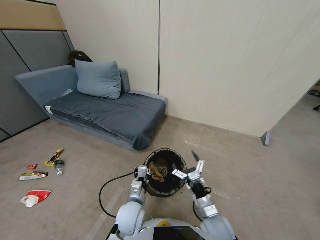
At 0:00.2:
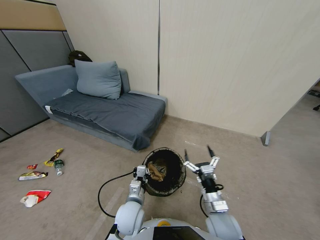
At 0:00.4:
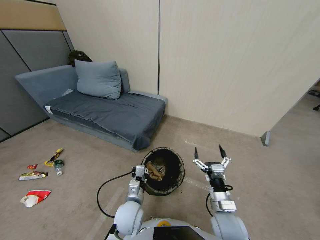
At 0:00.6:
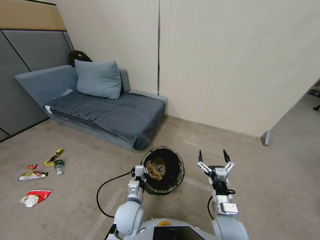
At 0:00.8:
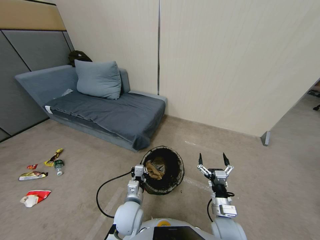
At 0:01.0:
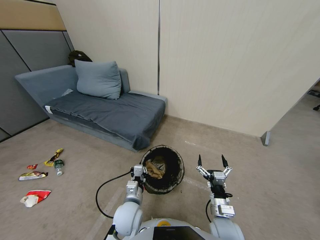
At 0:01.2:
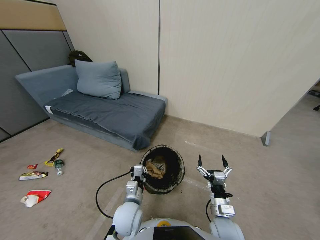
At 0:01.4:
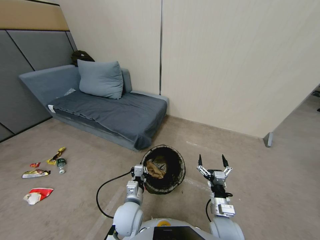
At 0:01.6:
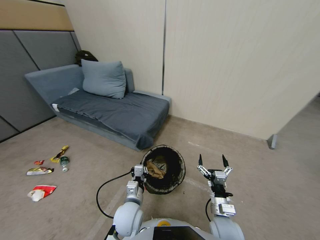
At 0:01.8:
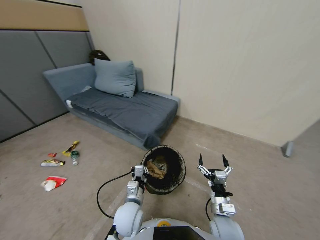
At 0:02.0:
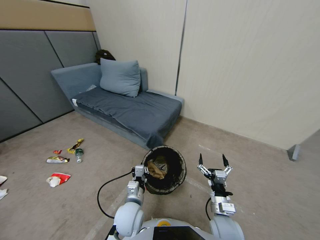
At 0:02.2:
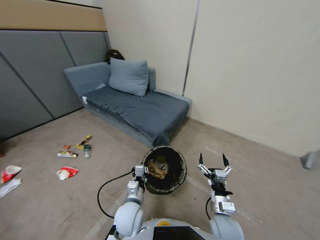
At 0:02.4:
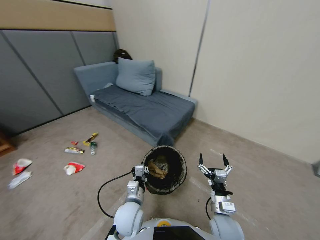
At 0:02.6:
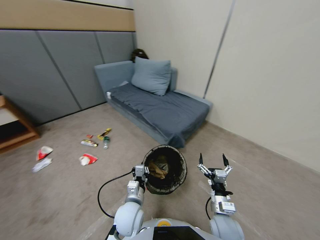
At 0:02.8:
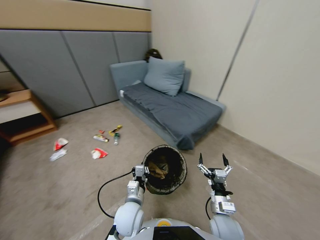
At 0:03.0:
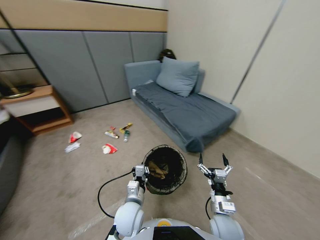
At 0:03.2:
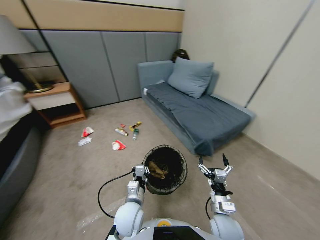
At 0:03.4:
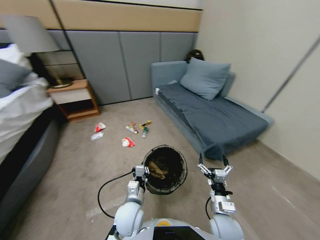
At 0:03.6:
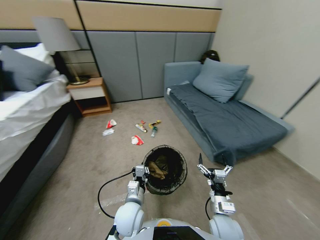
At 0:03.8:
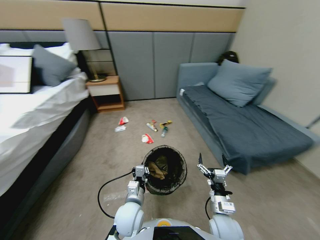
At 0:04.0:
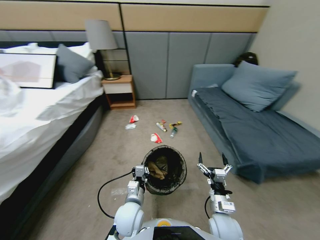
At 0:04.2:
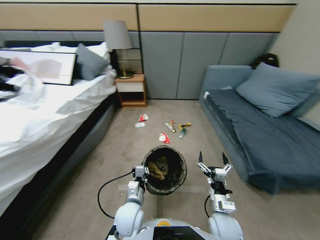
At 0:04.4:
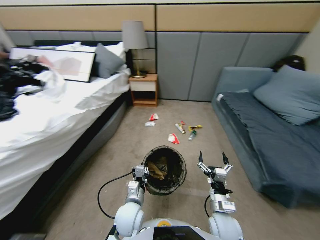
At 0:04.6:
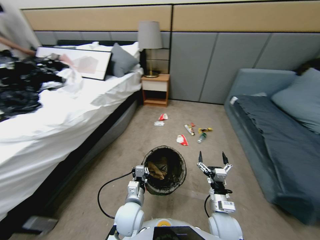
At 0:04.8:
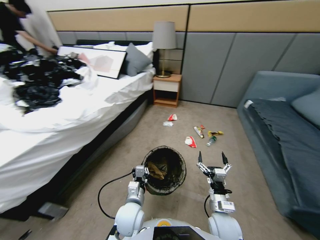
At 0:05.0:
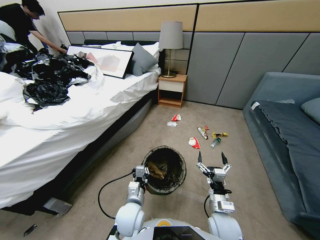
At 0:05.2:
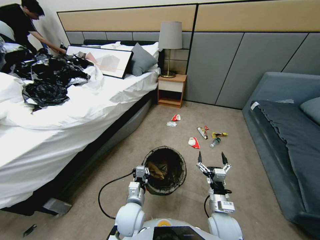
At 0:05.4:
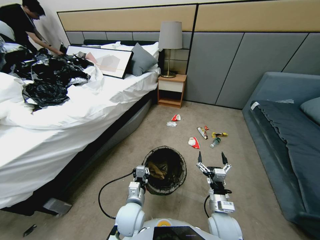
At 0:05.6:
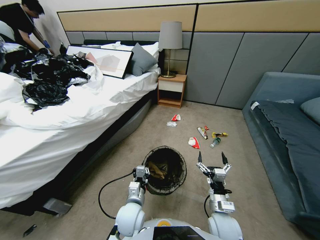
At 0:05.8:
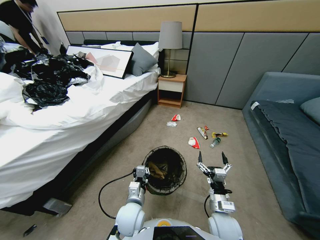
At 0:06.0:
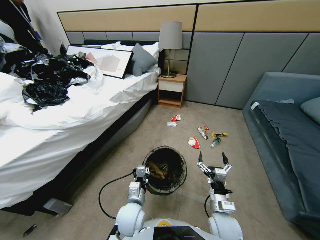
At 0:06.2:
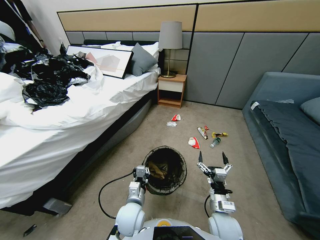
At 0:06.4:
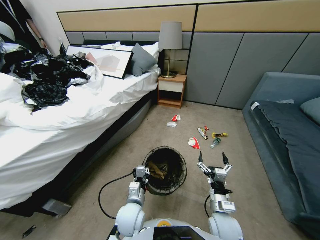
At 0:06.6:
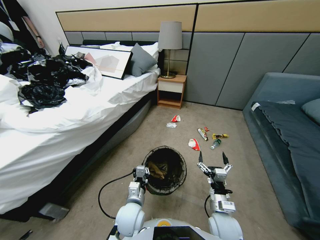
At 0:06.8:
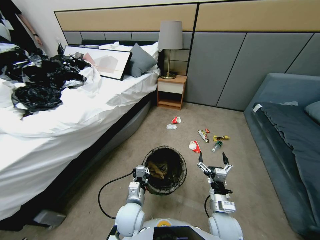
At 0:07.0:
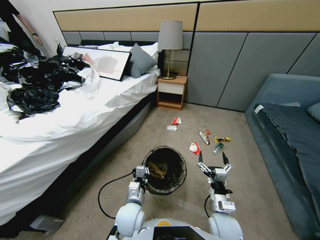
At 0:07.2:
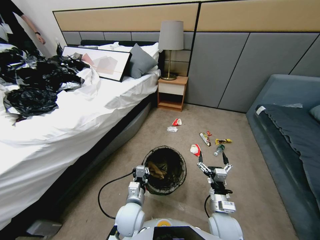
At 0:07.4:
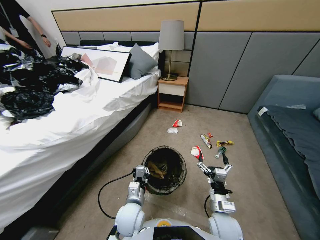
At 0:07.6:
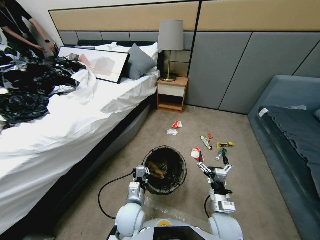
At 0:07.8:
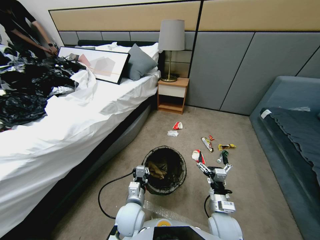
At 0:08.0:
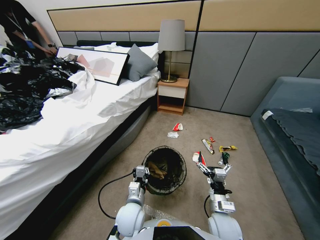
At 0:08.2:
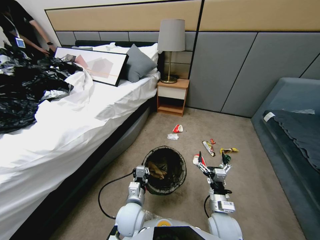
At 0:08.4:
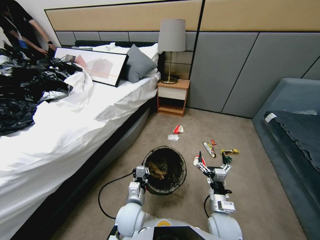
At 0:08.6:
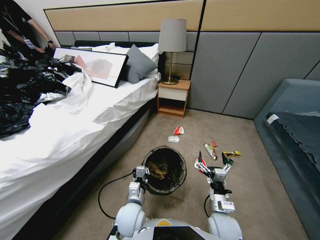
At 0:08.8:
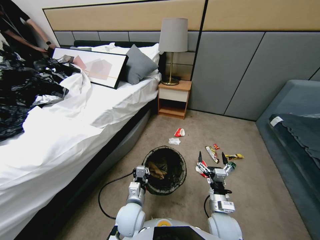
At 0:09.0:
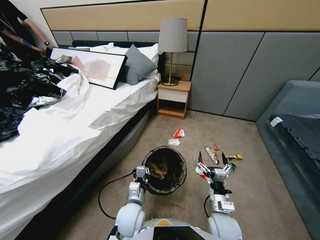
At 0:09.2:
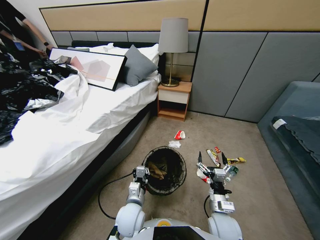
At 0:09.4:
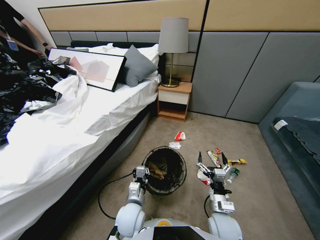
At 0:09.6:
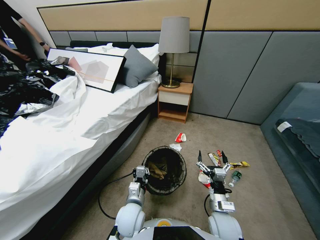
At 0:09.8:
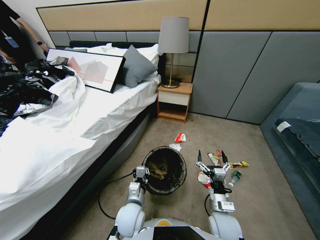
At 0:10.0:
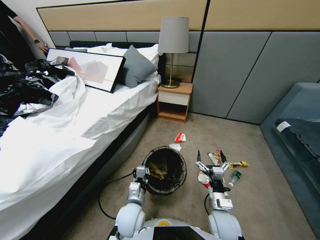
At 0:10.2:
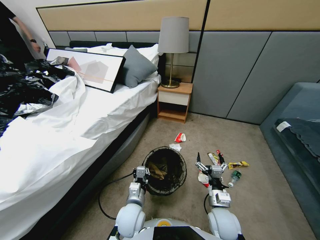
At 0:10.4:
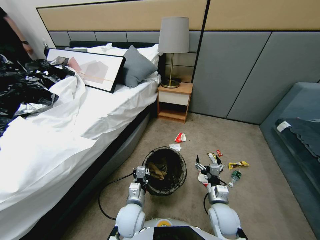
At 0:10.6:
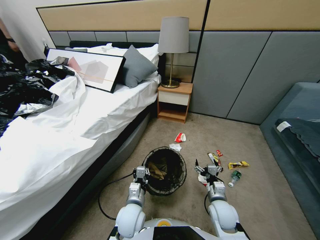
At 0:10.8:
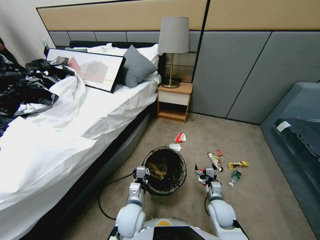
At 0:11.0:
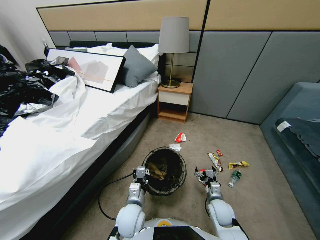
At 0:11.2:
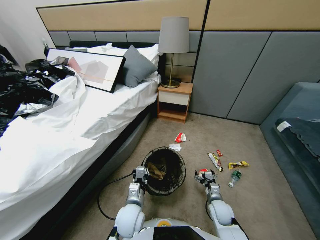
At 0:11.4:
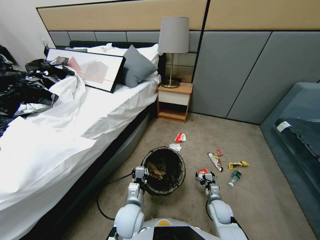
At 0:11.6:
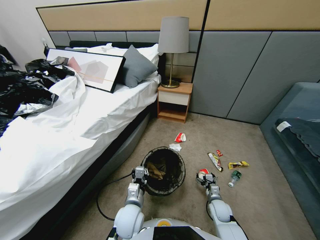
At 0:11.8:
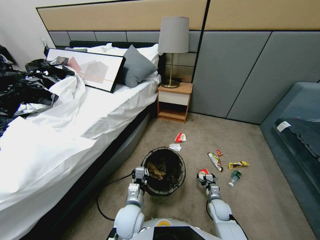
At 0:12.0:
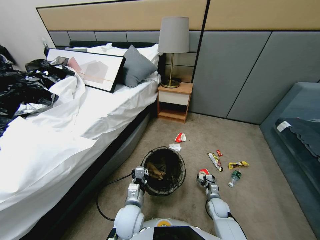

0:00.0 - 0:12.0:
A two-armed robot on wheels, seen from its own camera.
Task of the whole recording: Pick up the trash bin, then pick up the garbage from the floor and place it into the trash bin.
0:00.0 - 0:01.6: The grippers move only a little.
0:10.4 - 0:12.0: The right gripper goes roughly 20 cm downward and to the right.

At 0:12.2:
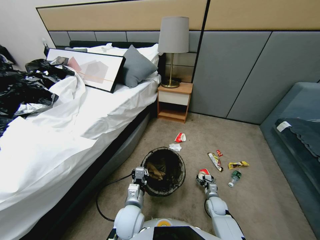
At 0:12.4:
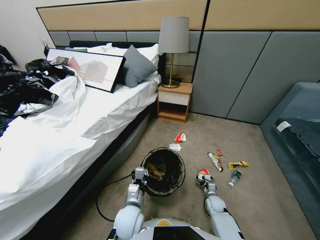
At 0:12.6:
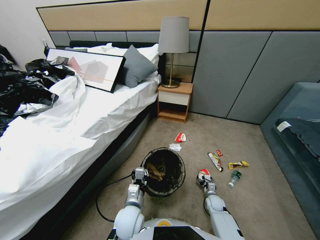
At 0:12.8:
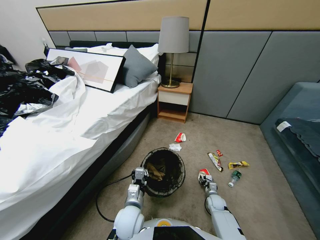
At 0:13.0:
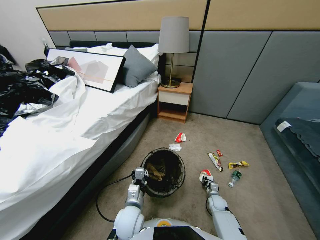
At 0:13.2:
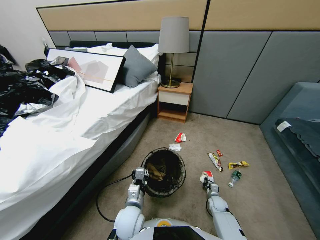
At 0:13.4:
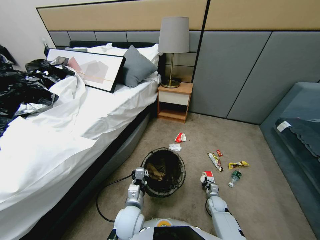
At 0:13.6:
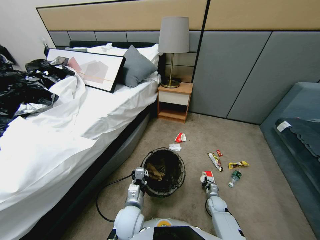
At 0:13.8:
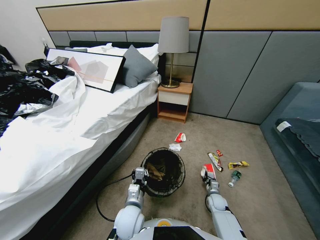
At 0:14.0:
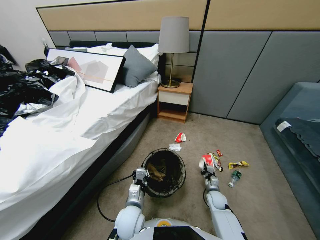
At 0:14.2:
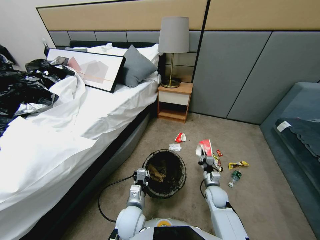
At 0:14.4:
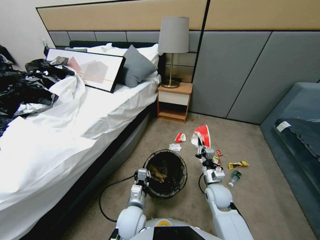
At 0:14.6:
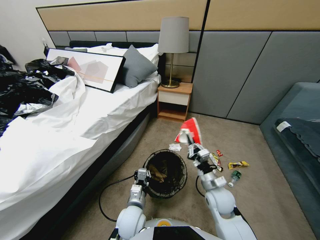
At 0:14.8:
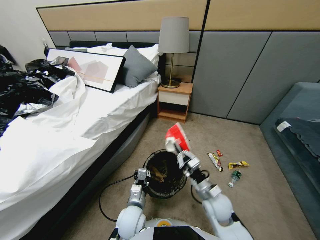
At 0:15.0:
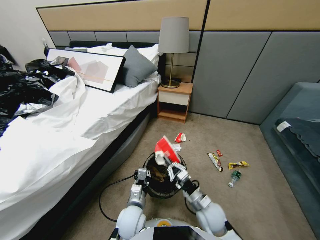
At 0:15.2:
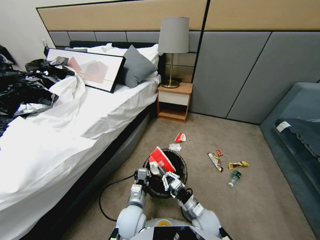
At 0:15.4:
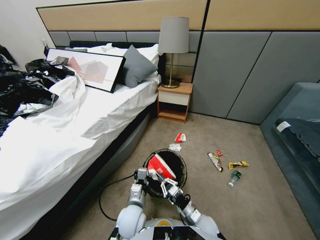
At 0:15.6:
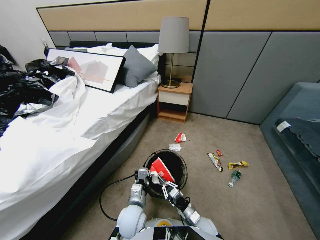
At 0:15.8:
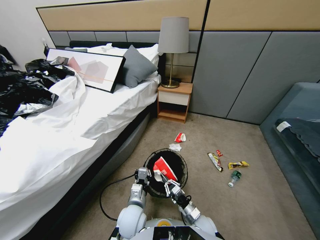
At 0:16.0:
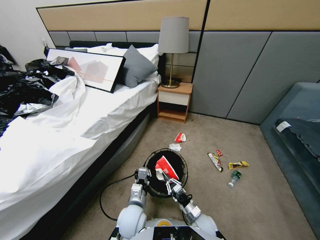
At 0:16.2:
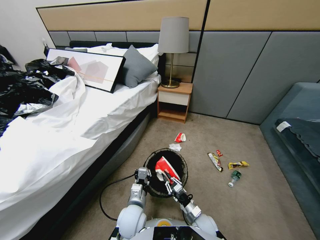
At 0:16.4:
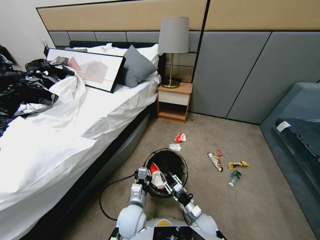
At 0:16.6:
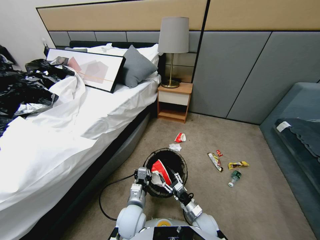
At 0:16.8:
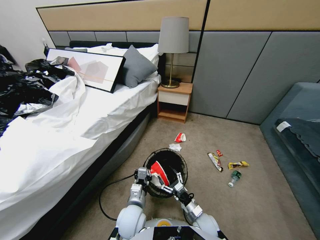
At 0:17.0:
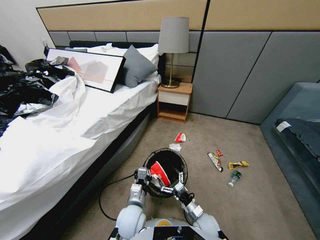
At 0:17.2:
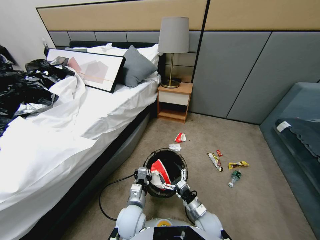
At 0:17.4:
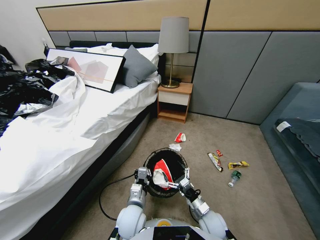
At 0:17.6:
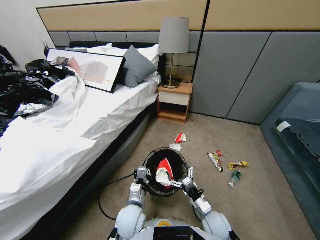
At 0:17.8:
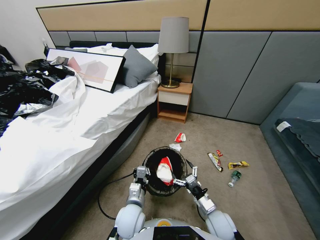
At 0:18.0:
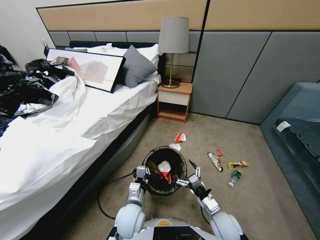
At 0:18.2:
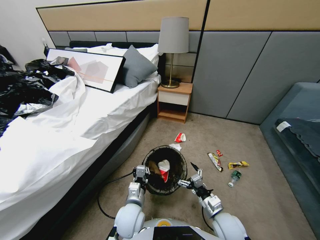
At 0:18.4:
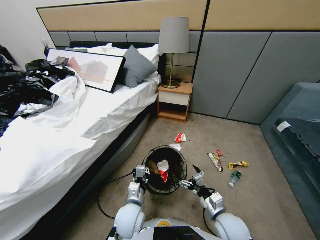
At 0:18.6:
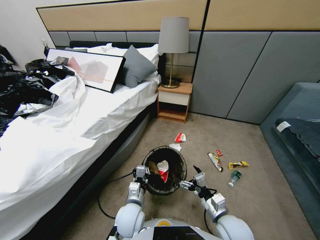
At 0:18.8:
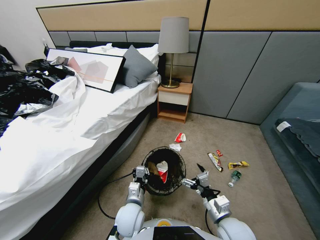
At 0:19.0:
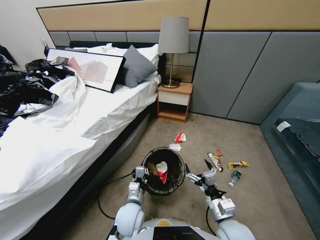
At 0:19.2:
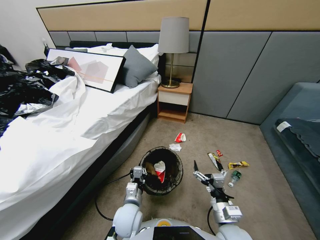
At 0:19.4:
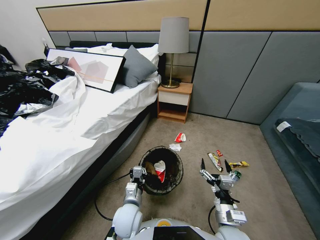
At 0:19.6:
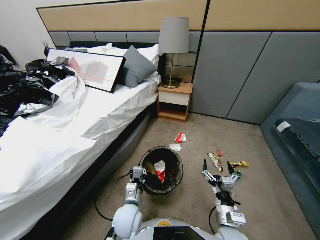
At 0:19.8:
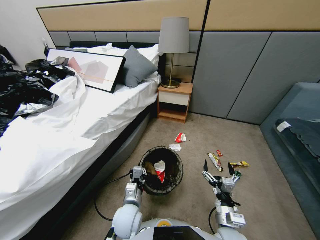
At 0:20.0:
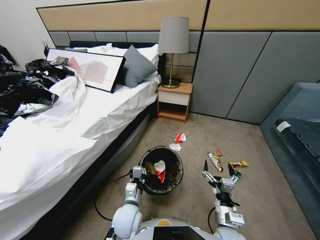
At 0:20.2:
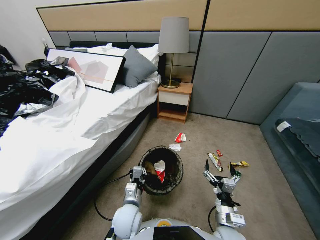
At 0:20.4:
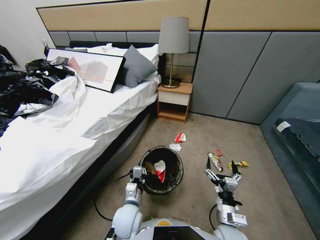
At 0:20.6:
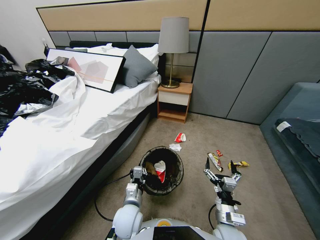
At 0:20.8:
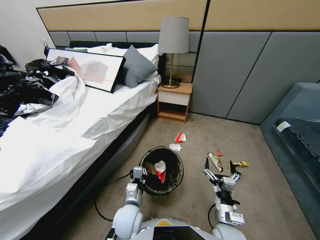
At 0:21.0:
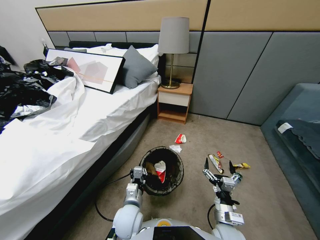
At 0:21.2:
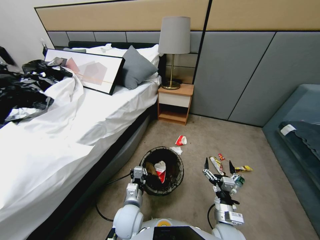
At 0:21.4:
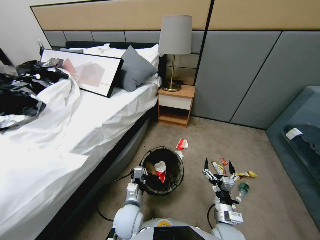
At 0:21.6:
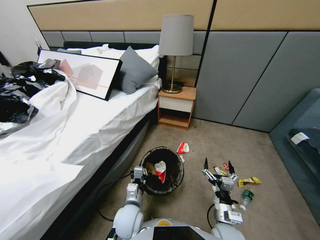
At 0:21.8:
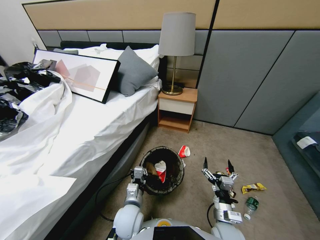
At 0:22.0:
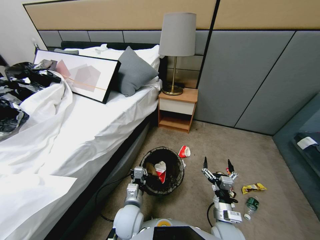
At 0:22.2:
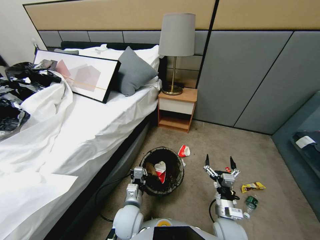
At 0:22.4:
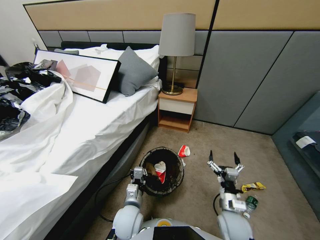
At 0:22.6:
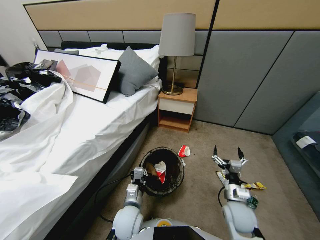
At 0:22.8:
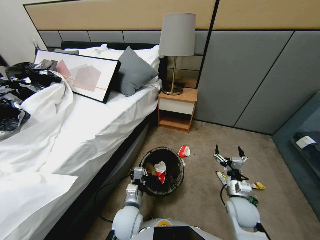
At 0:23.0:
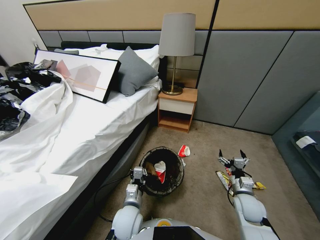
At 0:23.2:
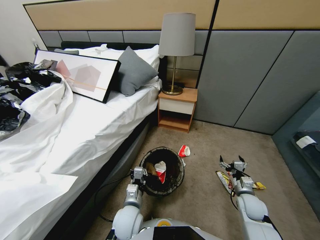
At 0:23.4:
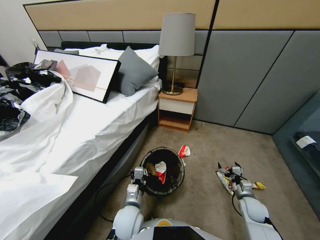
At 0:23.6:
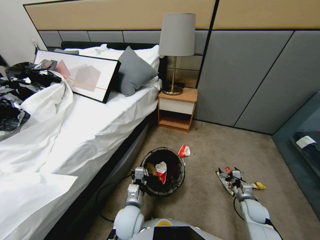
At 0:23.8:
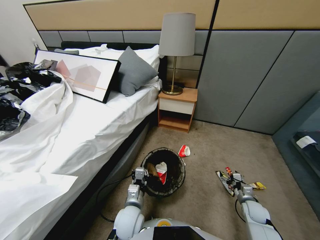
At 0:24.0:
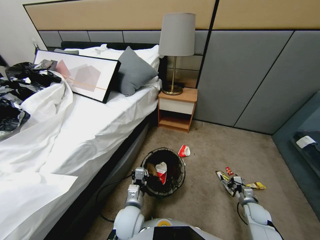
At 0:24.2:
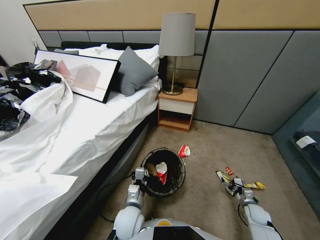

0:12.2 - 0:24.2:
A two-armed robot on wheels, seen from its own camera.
Task of the whole recording: Pick up the trash bin, then pick up the garbage from the floor and place it into the trash bin.
0:12.2 - 0:13.8: The right gripper closes its fingers.
0:13.8 - 0:15.2: The right gripper is displaced to the left, upward and backward by approximately 25 cm.
0:15.2 - 0:16.6: The right gripper moves downward, approximately 5 cm, and opens its fingers.
0:16.6 - 0:18.2: The right gripper shifts about 10 cm upward.
0:19.8 - 0:21.2: The grippers move only a little.
0:21.2 - 0:22.6: The right gripper moves to the right and forward, some 10 cm.
0:22.6 - 0:24.2: The right gripper travels to the right and downward by about 25 cm.
